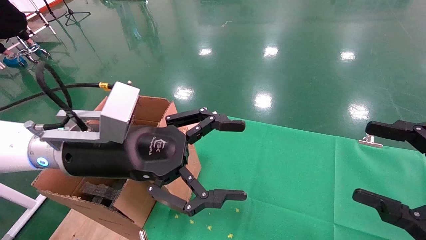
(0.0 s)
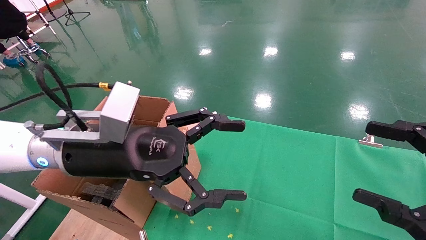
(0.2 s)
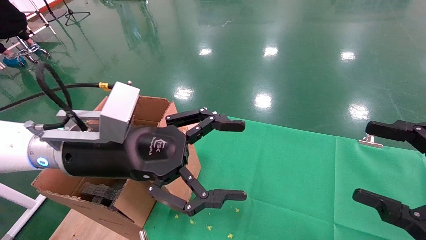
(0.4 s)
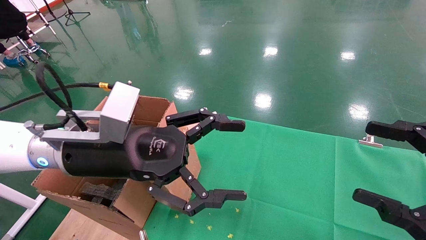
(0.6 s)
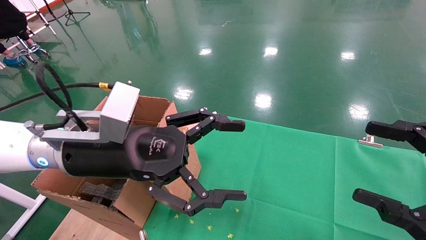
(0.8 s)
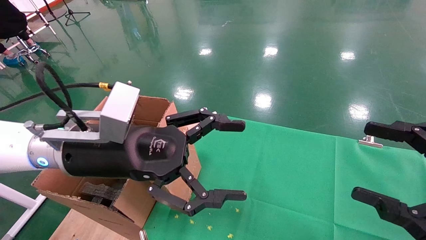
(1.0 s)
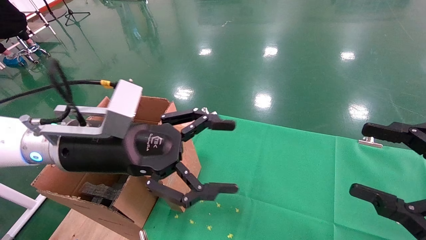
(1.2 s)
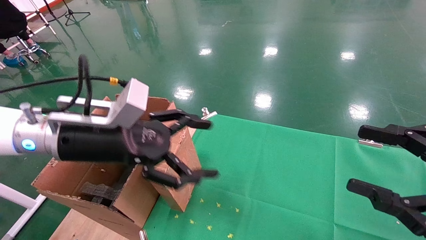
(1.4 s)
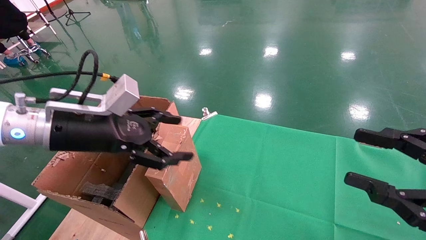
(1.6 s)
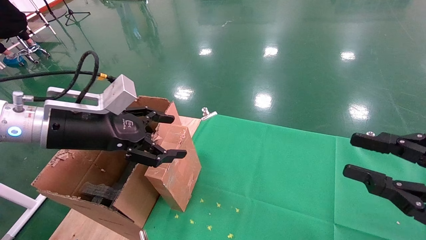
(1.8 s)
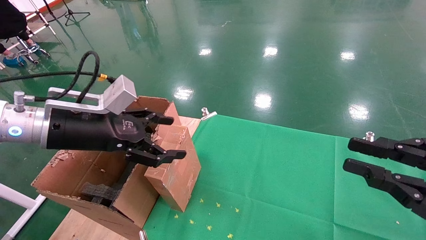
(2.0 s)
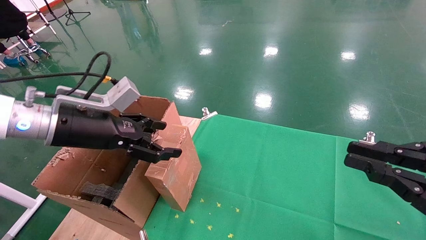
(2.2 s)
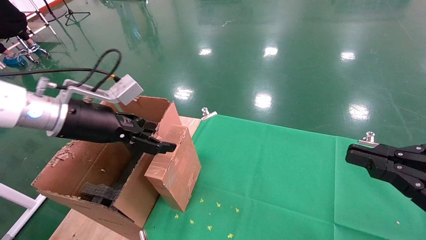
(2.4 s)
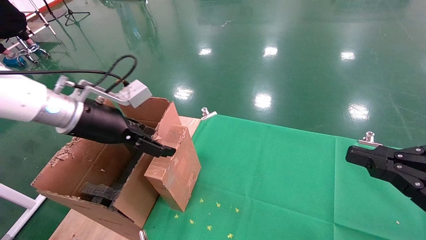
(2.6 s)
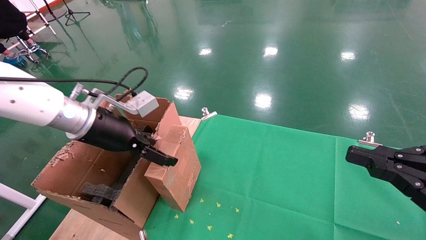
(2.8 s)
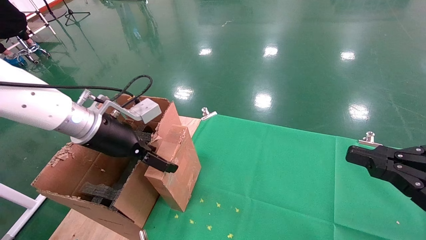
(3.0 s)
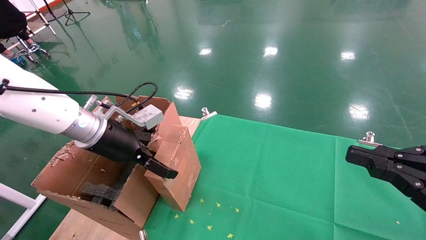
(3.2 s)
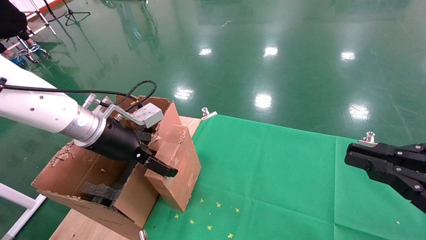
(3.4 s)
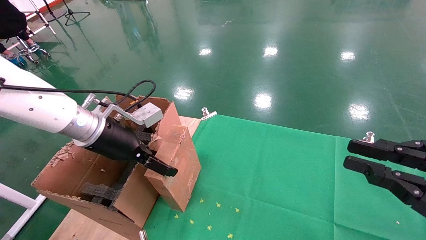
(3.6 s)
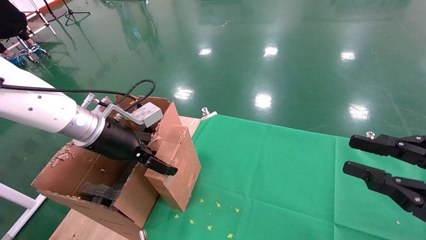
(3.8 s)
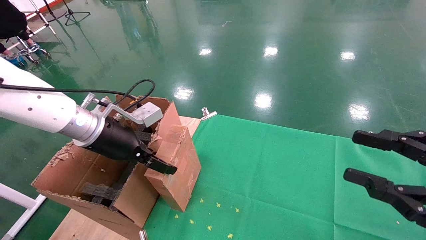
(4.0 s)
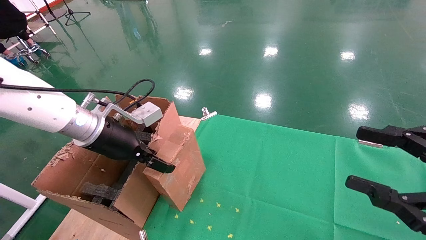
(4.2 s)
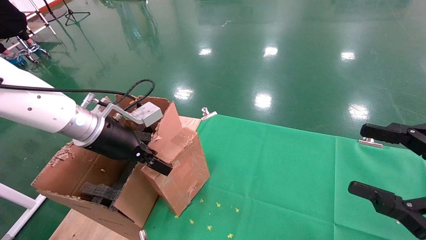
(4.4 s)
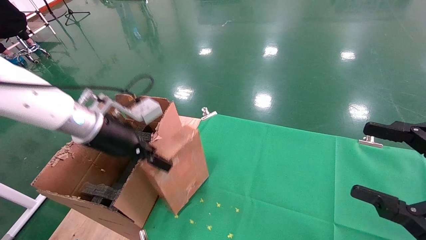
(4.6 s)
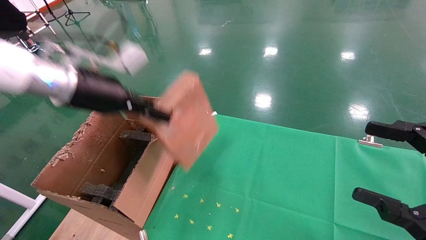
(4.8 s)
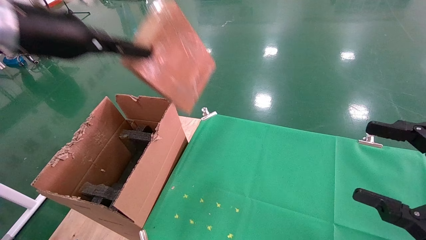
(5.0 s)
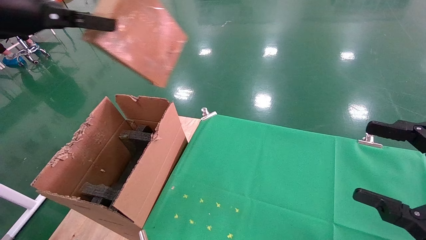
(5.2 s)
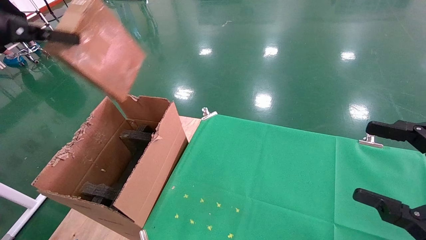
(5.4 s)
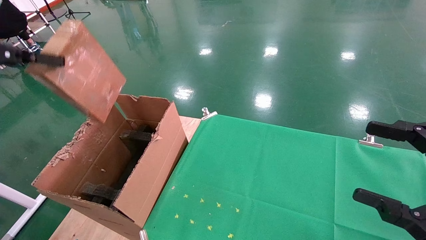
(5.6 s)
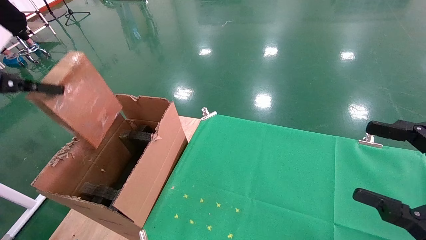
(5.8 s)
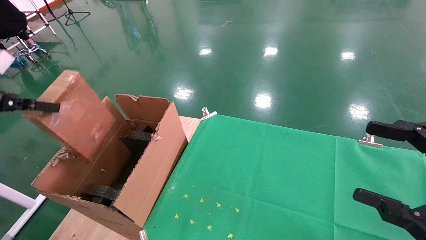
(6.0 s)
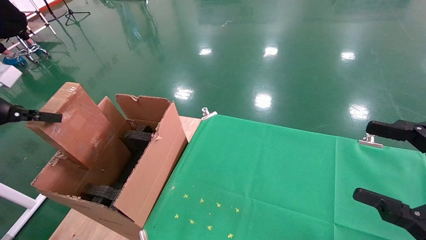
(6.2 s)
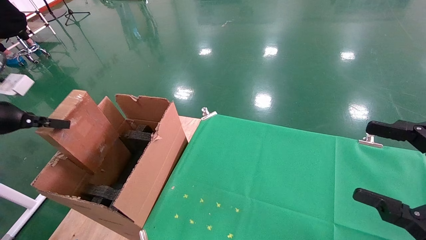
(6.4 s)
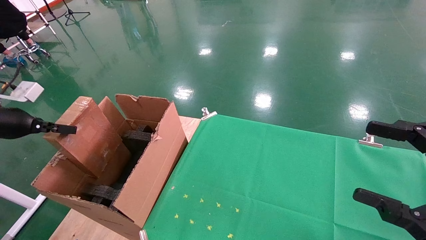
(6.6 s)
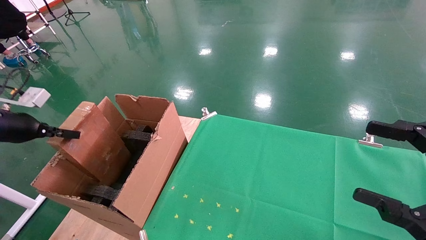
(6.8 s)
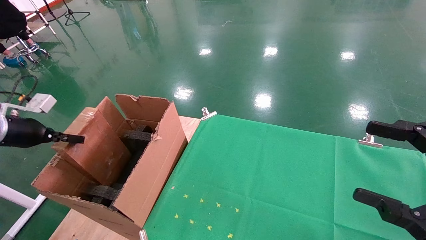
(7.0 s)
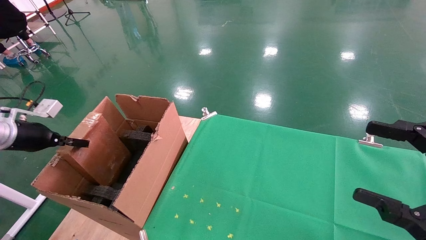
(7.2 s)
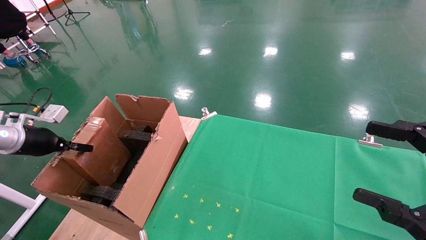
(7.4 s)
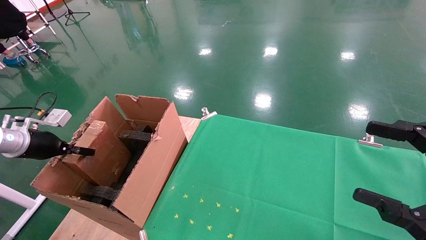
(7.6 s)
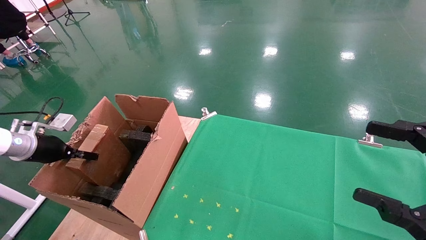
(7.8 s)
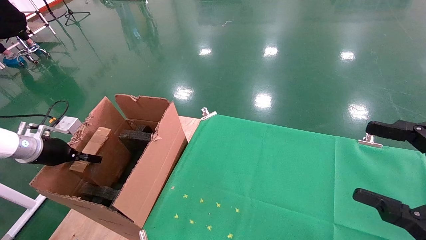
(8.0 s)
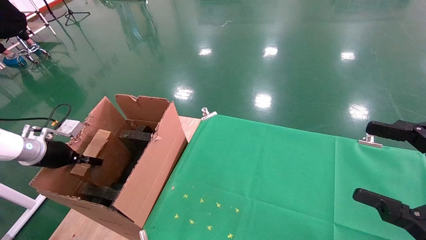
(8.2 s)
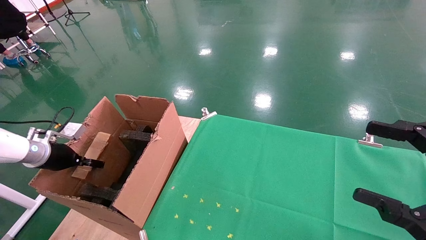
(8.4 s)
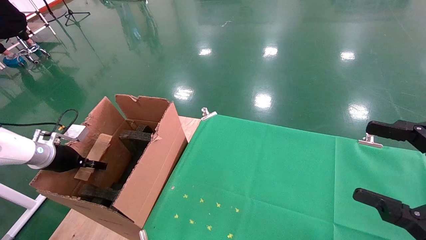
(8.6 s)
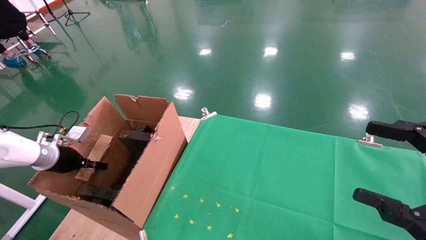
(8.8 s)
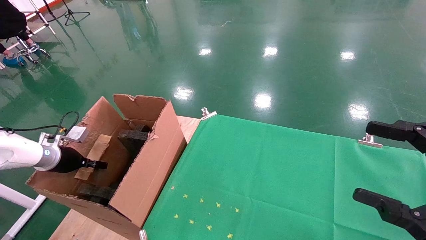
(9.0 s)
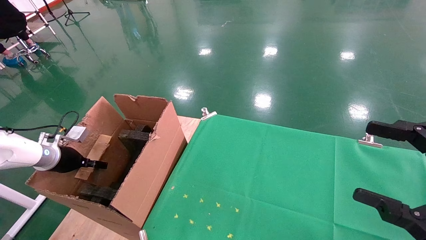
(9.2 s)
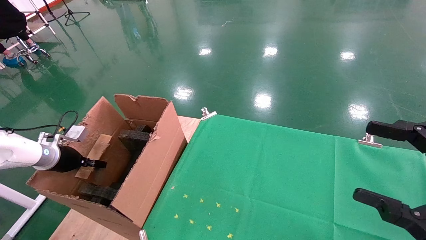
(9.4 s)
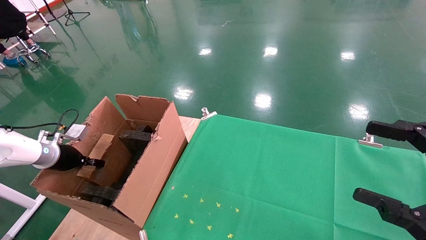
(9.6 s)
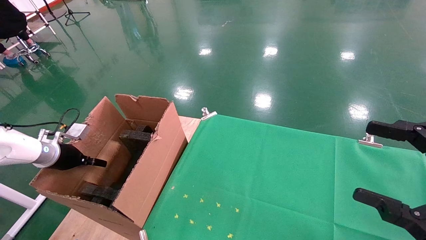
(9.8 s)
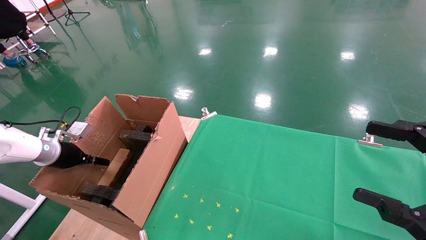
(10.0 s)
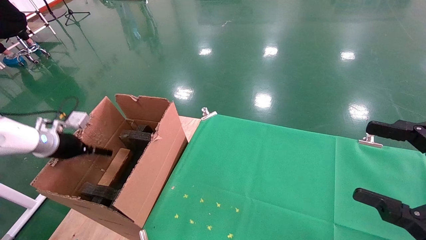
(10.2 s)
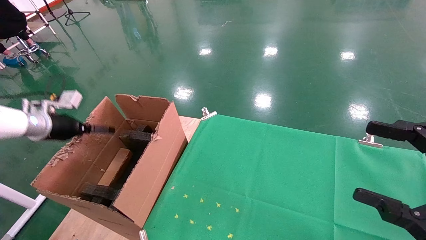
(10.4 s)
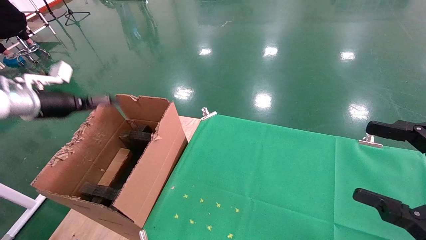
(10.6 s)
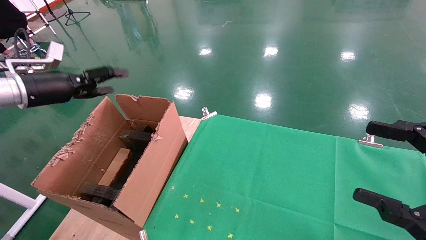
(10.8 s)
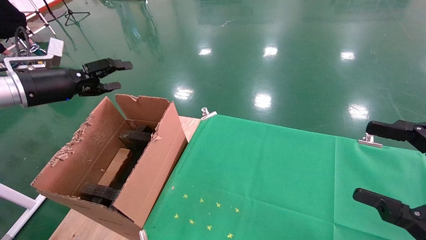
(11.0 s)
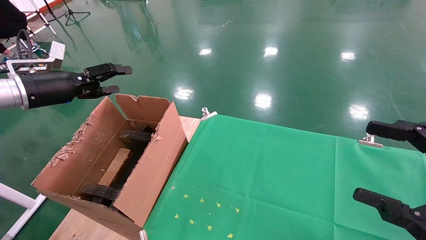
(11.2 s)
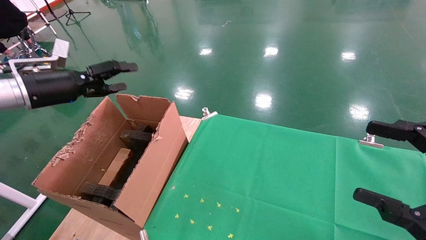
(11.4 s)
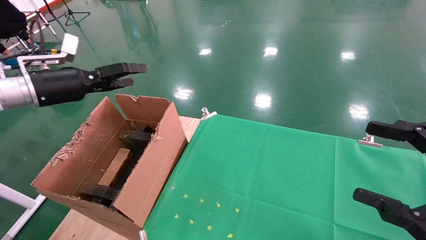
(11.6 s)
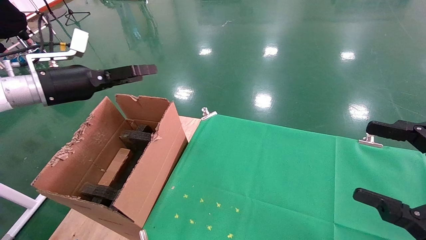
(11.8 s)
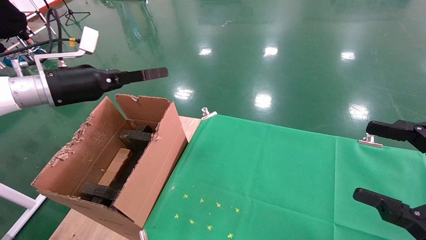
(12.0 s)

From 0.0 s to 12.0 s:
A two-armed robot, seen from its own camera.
Task of the whole recording: using a robotic arm to pick up a cardboard box and palace it the carton.
Step, from 1.4 s to 4.4 s: Pick up the mouse and the power cord paper box.
Step, from 4.6 s to 10.6 s: Place the mouse and the power cord paper box into the container.
From 0.0 s to 1.6 s: The left gripper heads to the left, covering about 5 cm.
From 1.6 s to 3.0 s: The right gripper closes. The left gripper is displaced forward by roughly 5 cm.
From 3.0 s to 4.4 s: The left gripper closes its fingers. Meanwhile the right gripper opens up.
From 4.4 s to 6.0 s: The left gripper moves to the left, approximately 25 cm.
From 6.0 s to 7.6 s: The left gripper travels downward and forward by some 15 cm.
From 7.6 s to 9.0 s: The left gripper moves downward, about 5 cm.
From 9.0 s to 10.4 s: The left gripper travels upward by roughly 10 cm, and opens its fingers.
From 10.4 s to 12.0 s: The left gripper goes some 15 cm to the right and upward.

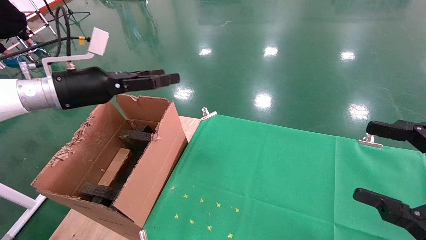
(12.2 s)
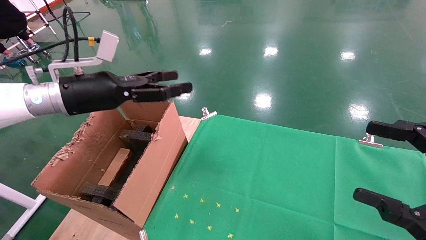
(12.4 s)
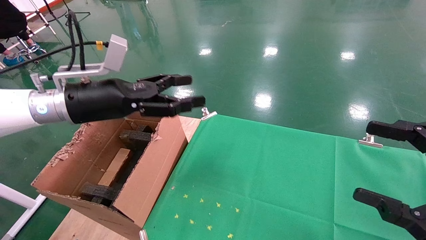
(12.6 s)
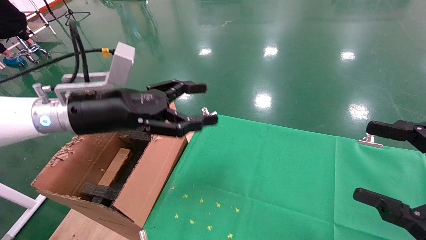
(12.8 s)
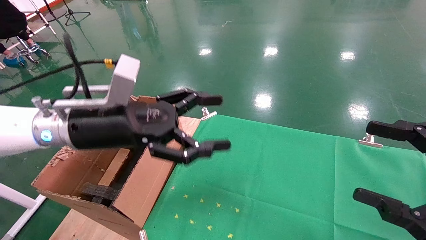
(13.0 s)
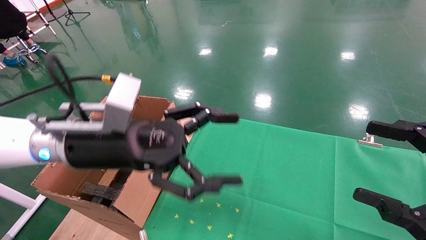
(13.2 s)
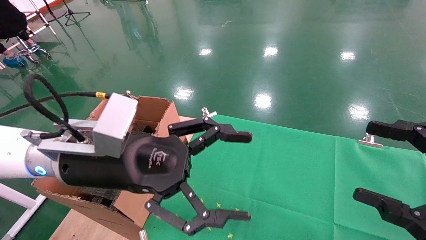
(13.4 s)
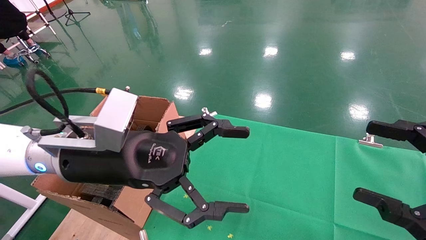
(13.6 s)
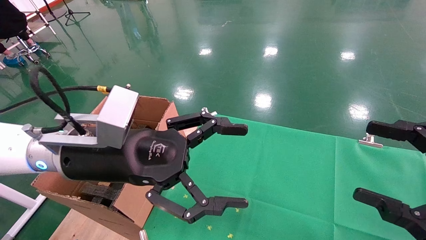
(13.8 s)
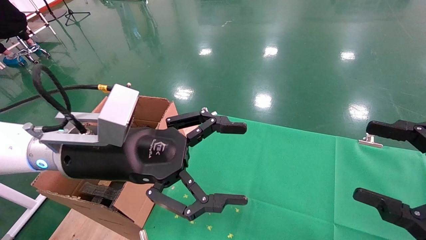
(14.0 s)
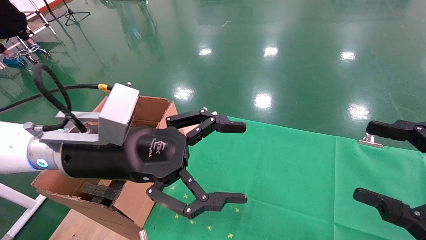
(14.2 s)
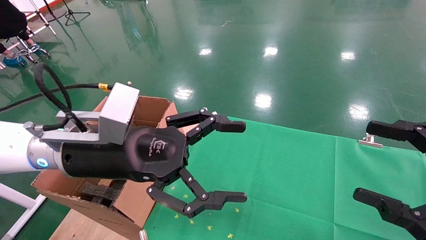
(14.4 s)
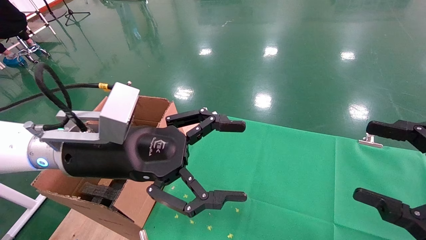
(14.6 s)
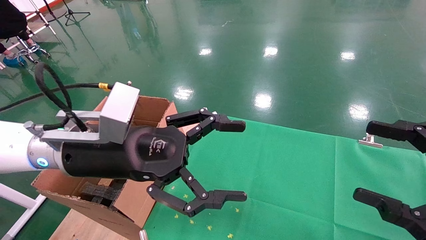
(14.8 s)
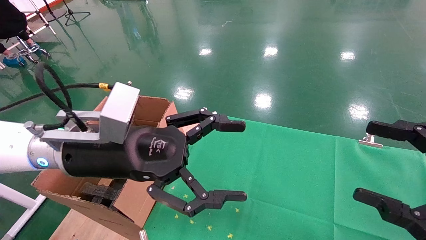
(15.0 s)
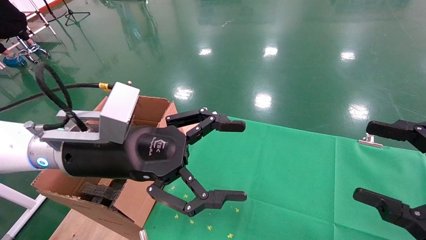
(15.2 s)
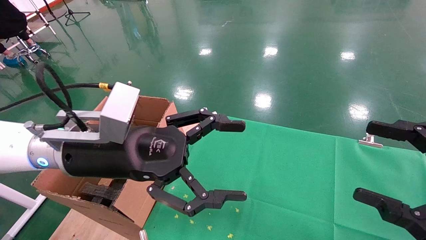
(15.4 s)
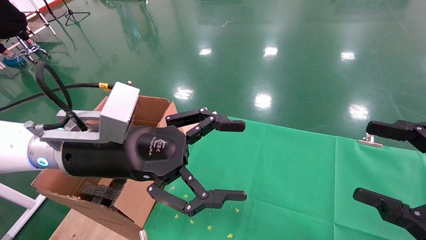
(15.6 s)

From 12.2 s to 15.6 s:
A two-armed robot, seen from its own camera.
Task of the whole recording: using a robotic arm to pick up a cardboard box and palace it the carton.
From 12.2 s to 13.8 s: The left gripper heads to the right and backward, covering approximately 20 cm.
From 13.8 s to 15.6 s: The two grippers keep their place.
